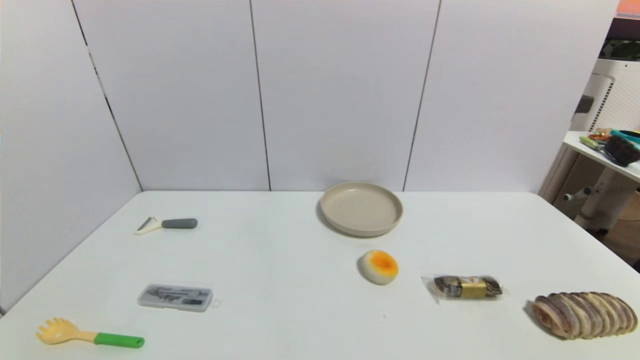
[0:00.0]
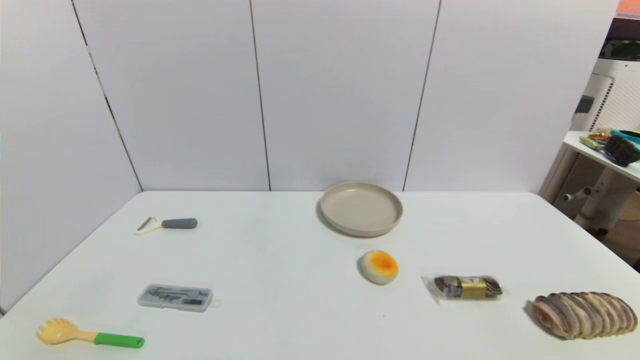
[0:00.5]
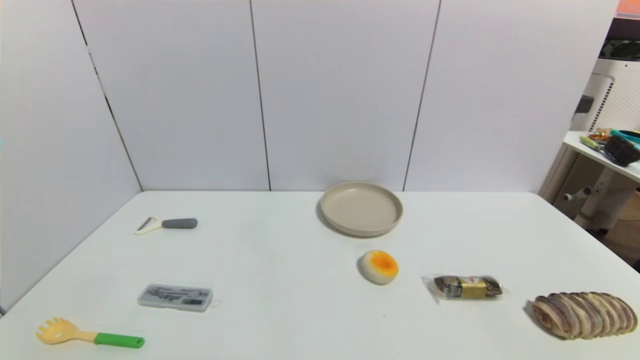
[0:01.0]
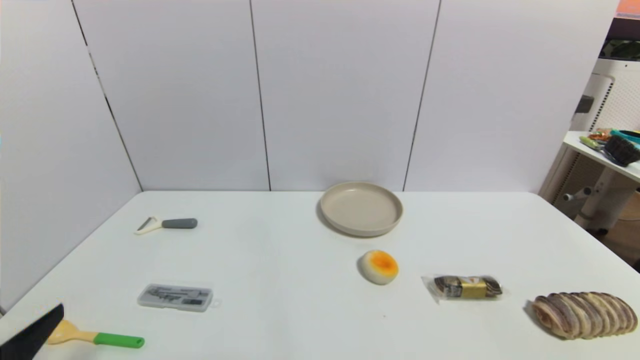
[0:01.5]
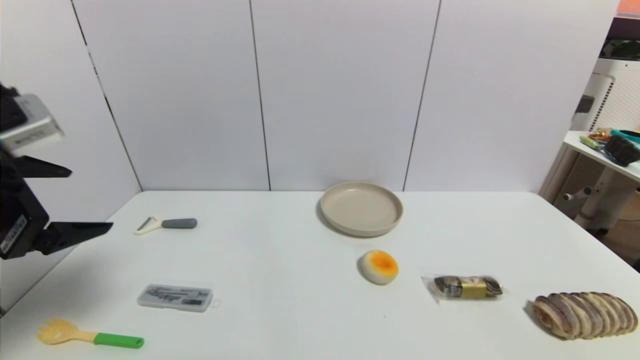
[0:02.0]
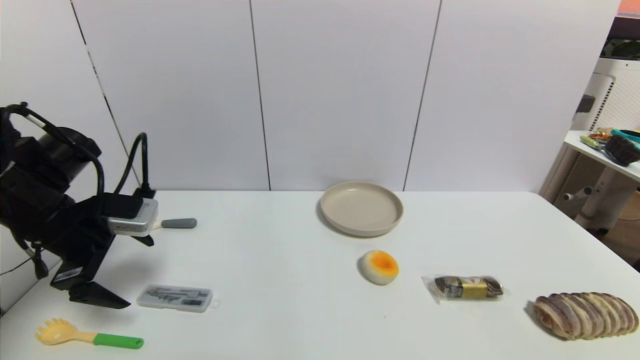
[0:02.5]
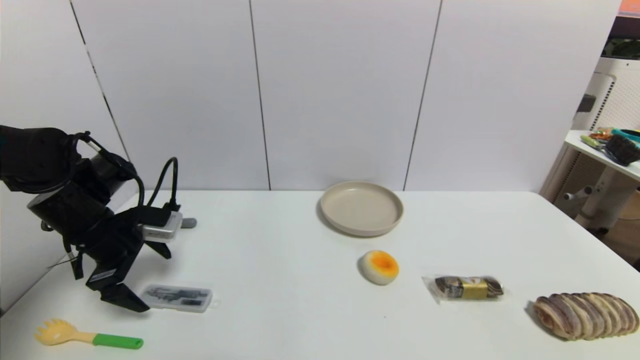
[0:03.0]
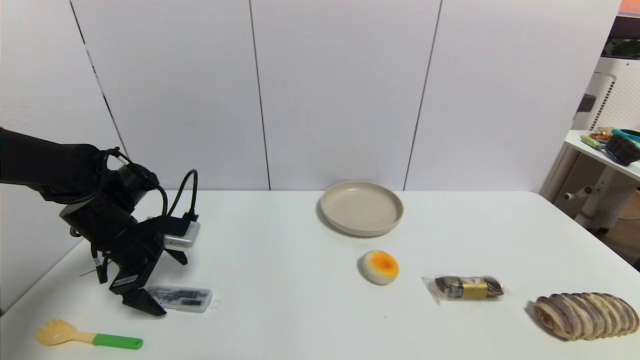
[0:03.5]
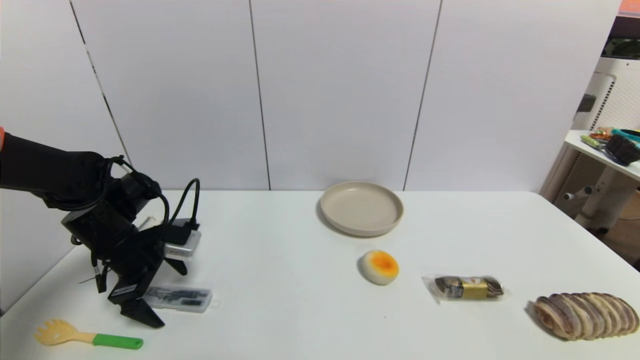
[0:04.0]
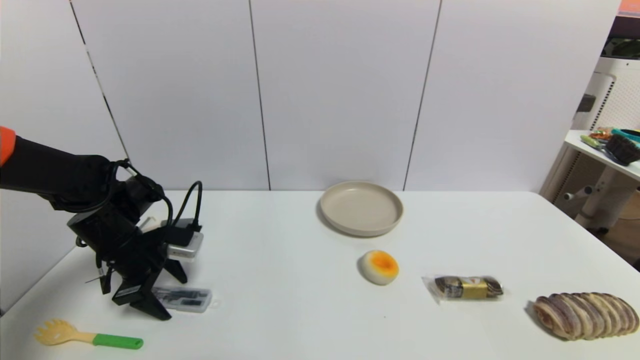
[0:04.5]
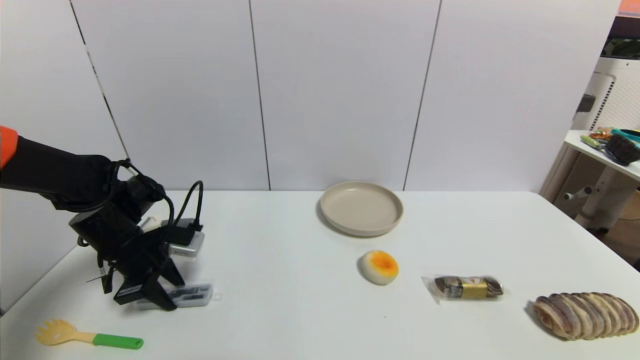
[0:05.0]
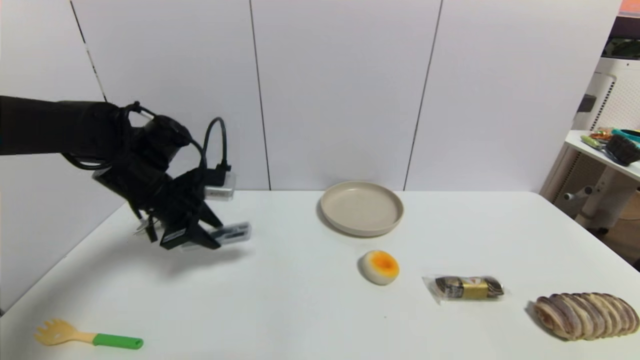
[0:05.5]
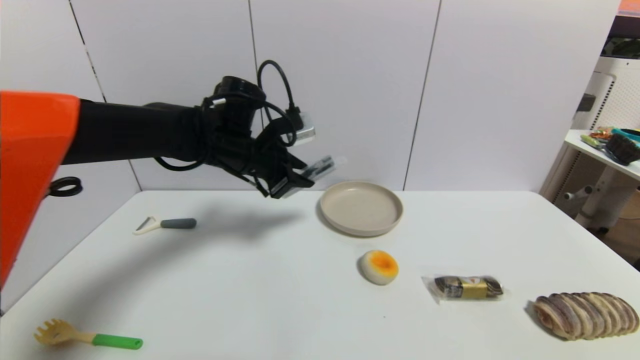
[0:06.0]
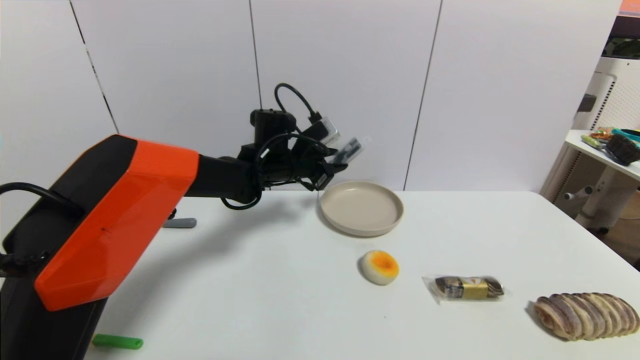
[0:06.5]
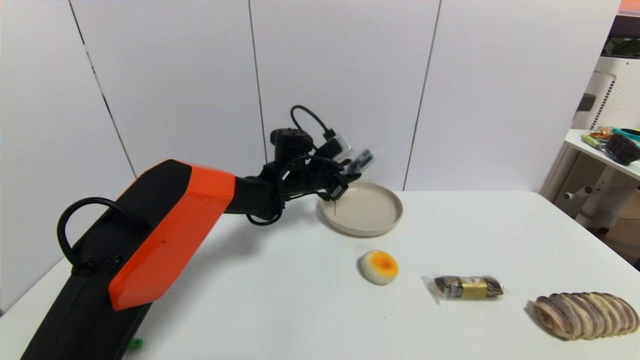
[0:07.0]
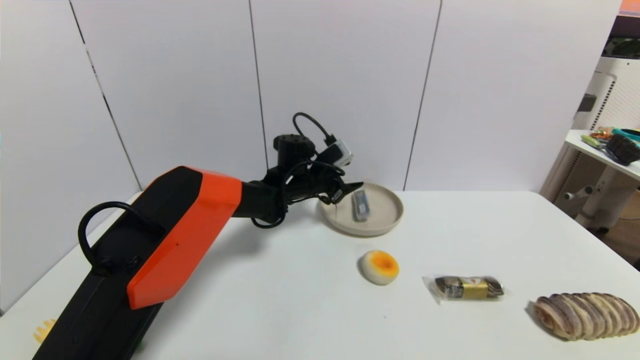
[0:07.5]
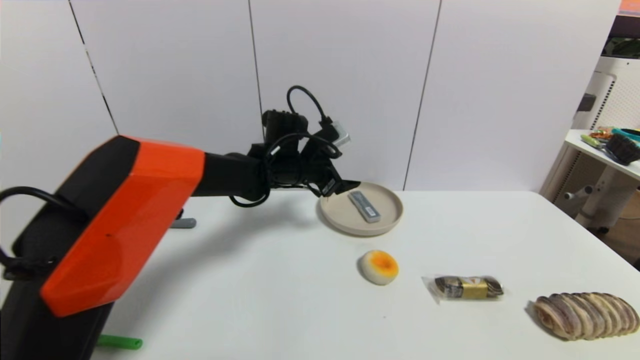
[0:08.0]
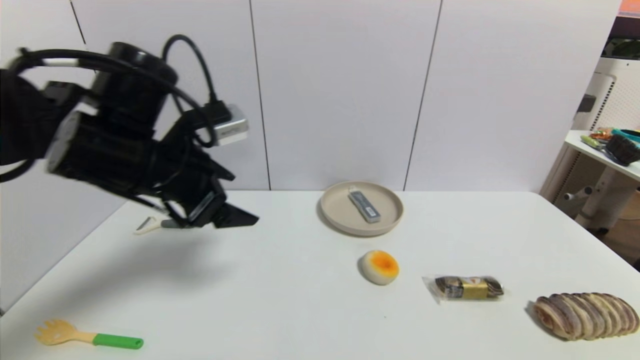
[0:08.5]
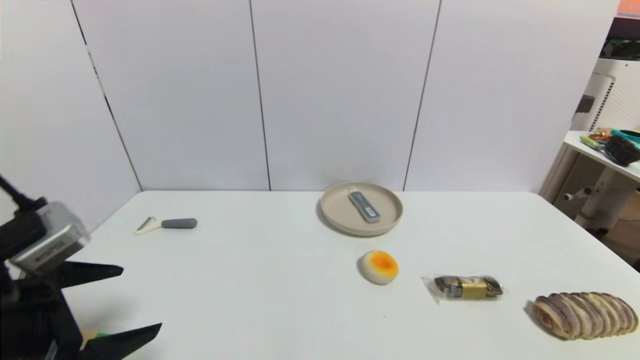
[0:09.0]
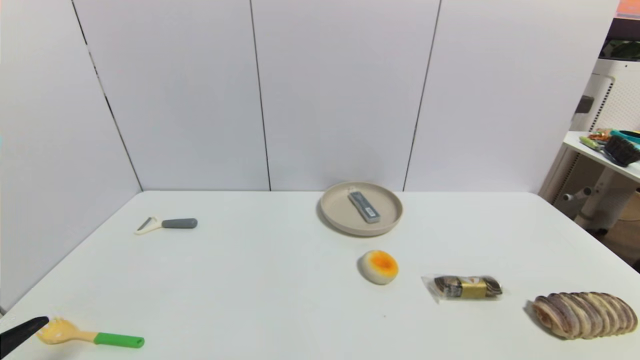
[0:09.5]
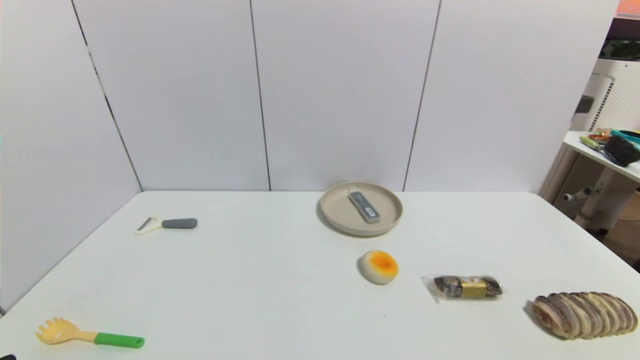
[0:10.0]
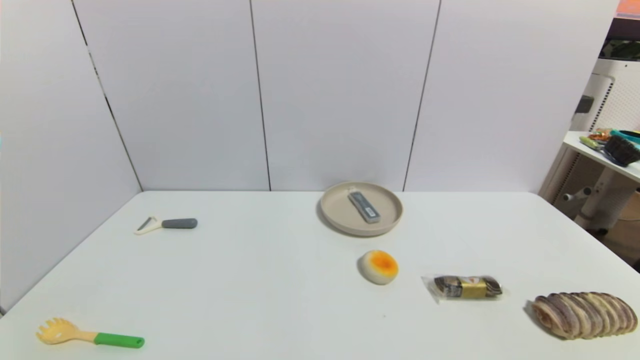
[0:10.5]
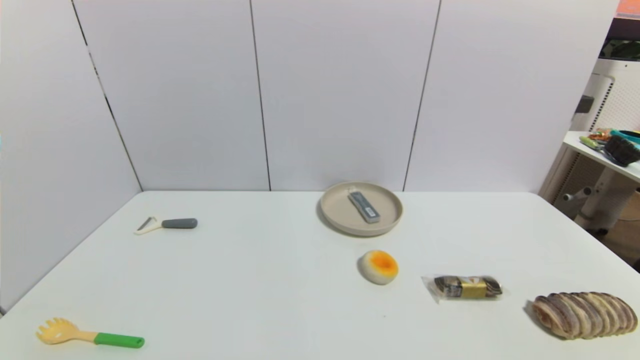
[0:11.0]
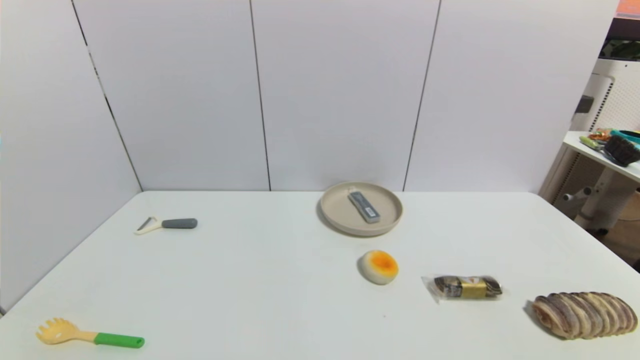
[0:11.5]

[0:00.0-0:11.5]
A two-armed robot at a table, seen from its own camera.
Task of the whole recording: use a gripper to pick the target object and place on the brown plate.
Step, 0:00.0 to 0:04.5: Grasp the compasses with the left gripper.
Step, 0:05.0 to 0:07.5: Place the compasses on the brown plate with the left gripper.
0:00.0 to 0:02.0: The left gripper moves upward and forward, about 30 cm.
0:02.0 to 0:04.0: The left gripper travels downward and forward by approximately 20 cm.
0:04.0 to 0:06.0: The left gripper goes about 20 cm to the right, upward and forward, and closes up.
0:06.0 to 0:07.5: The left gripper heads downward, to the right and forward, covering approximately 15 cm, and opens its fingers.
0:07.5 to 0:09.5: The left gripper is displaced backward and to the left by about 50 cm, and opens its fingers.
